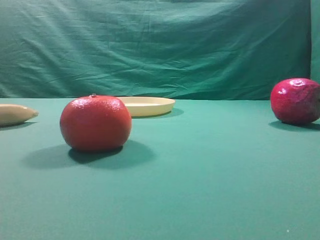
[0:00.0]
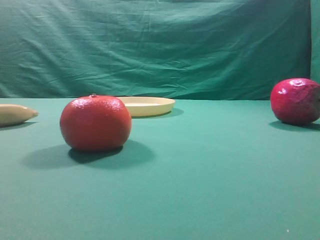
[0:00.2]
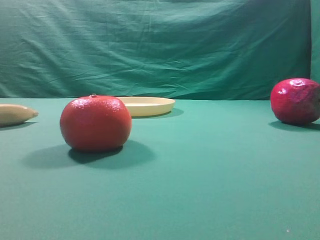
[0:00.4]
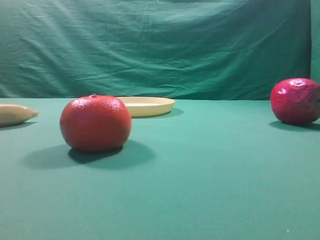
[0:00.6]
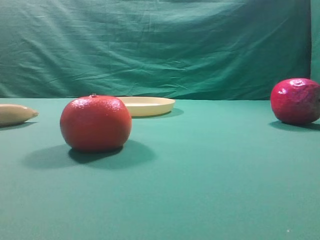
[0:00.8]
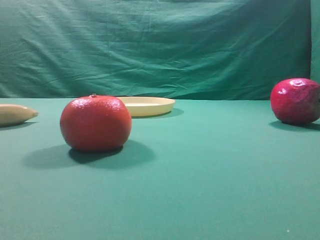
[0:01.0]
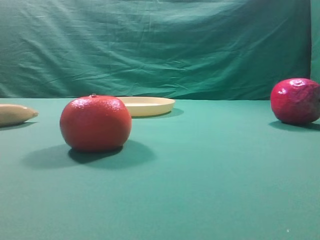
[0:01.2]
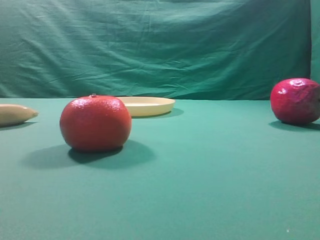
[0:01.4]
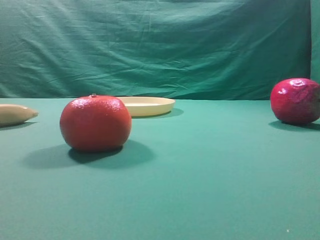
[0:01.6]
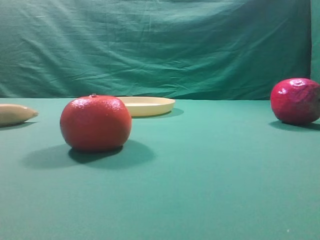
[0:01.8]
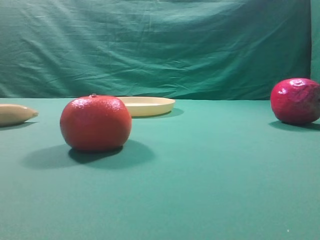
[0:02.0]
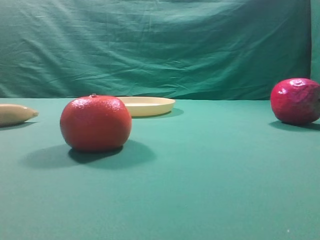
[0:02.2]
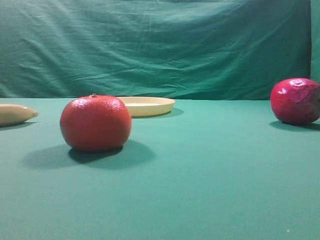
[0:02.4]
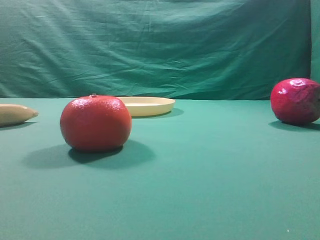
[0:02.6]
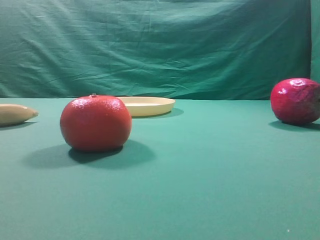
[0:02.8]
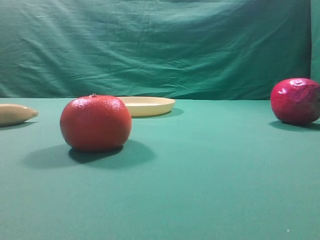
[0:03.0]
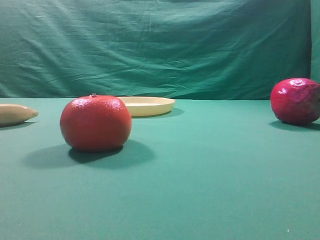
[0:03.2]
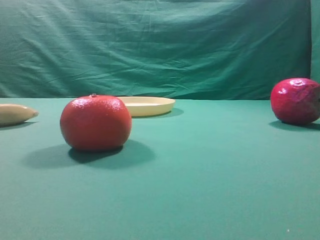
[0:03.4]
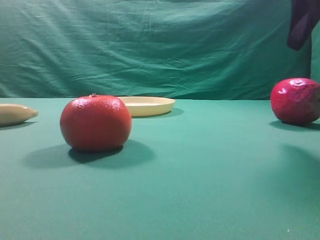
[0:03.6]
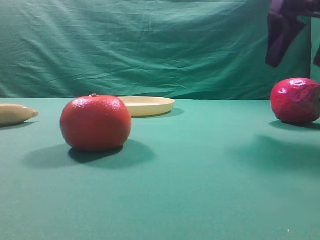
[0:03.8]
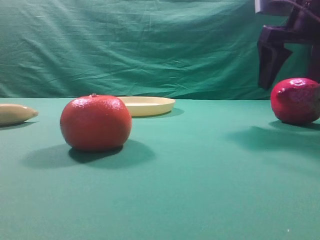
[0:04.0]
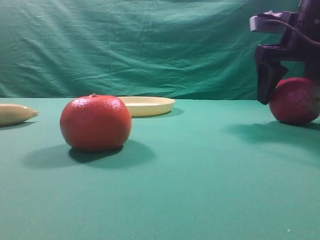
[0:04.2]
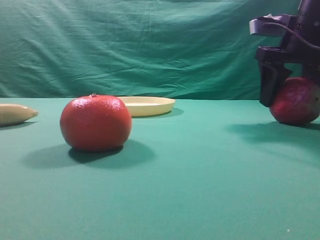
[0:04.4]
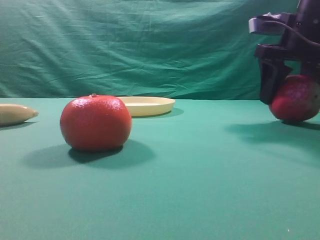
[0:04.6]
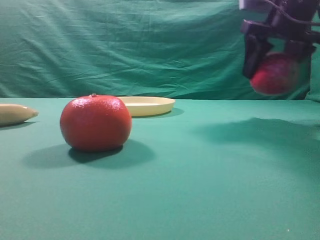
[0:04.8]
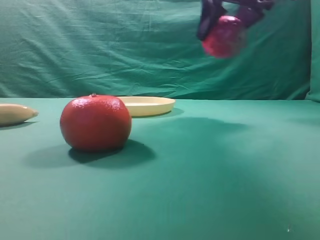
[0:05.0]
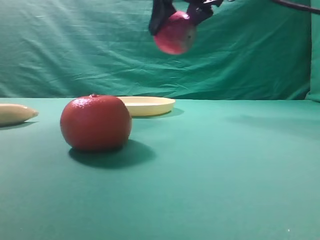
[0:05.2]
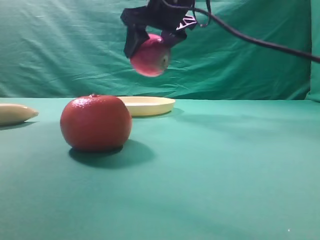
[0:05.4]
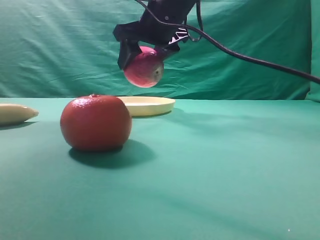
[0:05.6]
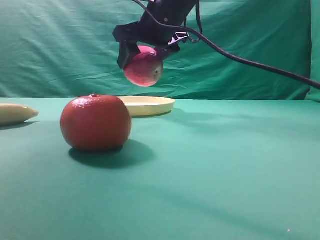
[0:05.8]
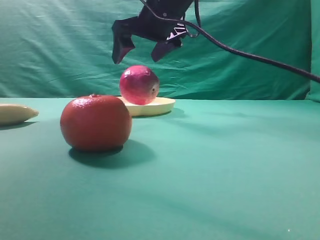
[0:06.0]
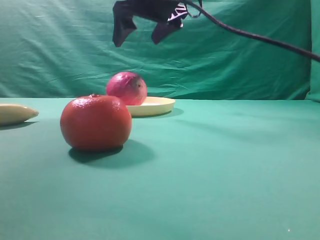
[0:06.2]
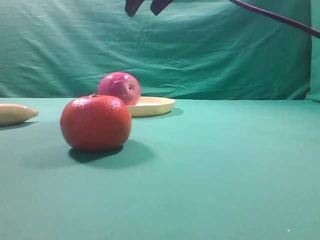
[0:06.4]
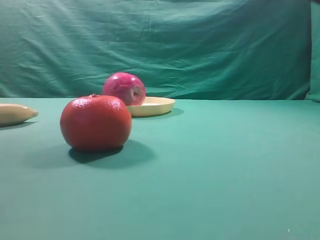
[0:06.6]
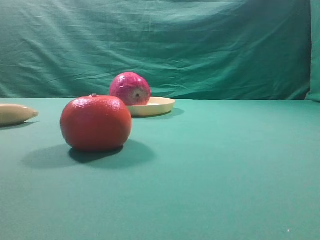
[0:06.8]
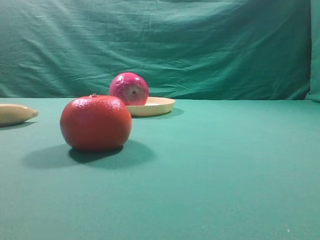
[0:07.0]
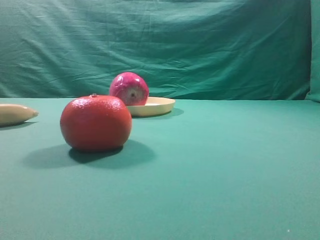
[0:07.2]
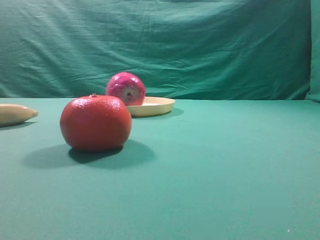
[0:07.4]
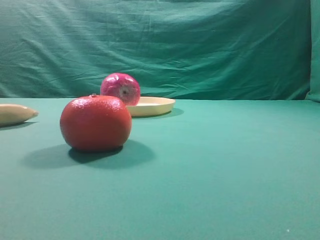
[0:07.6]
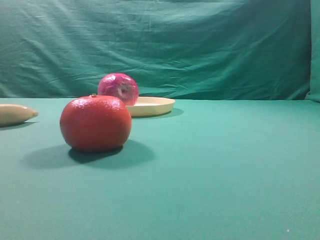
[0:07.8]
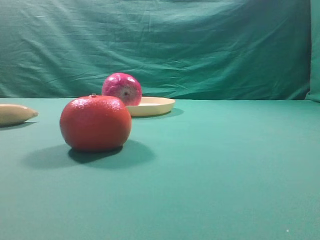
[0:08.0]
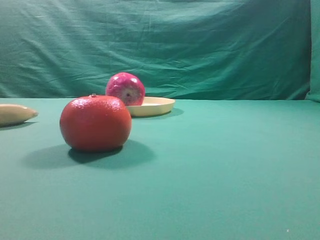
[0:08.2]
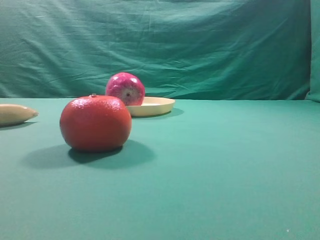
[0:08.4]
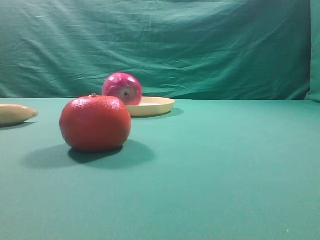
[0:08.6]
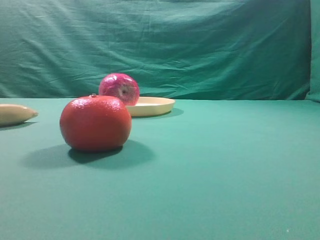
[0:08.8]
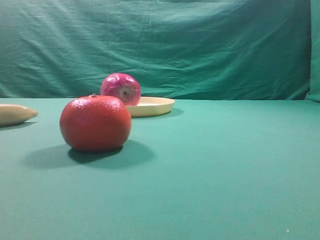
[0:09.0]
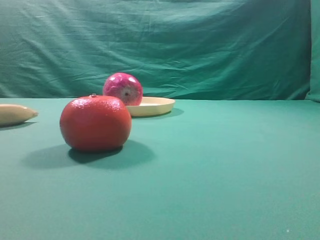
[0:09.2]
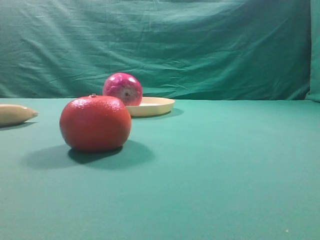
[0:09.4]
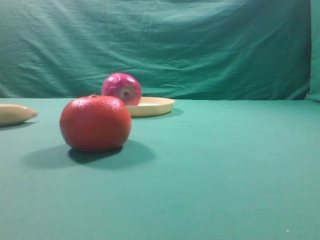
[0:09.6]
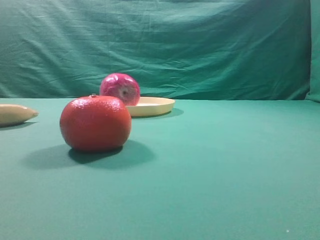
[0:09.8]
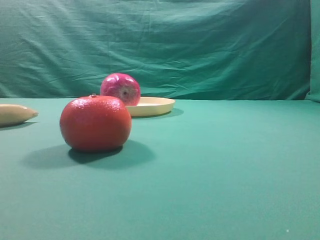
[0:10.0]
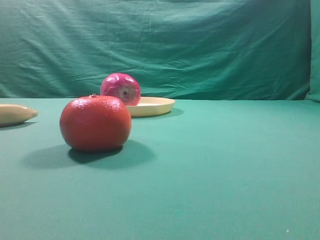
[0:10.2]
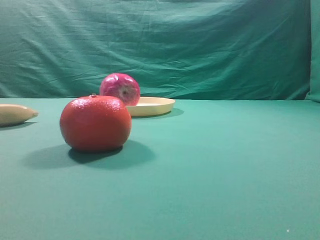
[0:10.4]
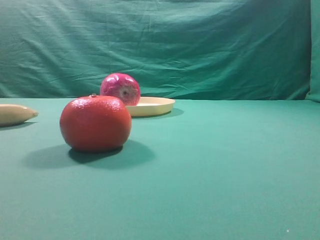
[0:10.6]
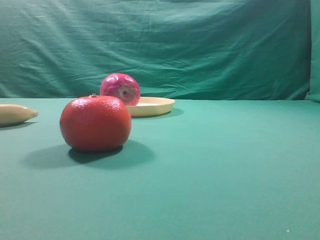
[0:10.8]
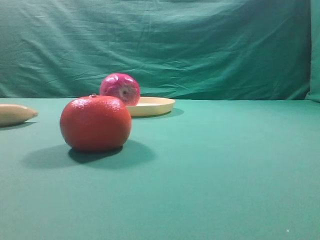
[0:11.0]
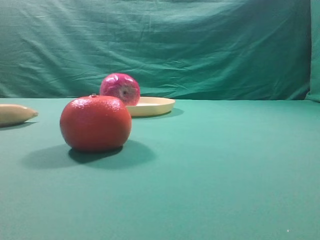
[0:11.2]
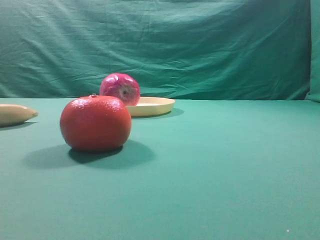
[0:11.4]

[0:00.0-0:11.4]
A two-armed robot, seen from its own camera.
Task of the whole recording: grasp the apple and place it into the yellow plate.
Step, 0:00.0 to 0:04.6: Grasp the fruit that can keep the doctor away.
Step, 0:04.8 to 0:06.0: Place the picked object into the yellow plate.
